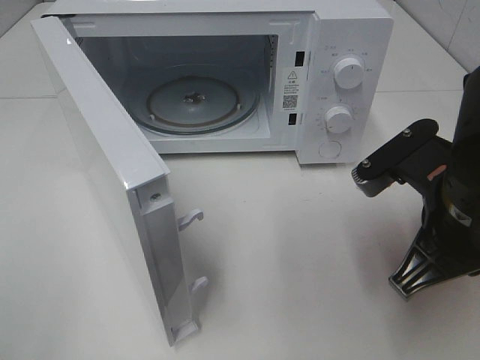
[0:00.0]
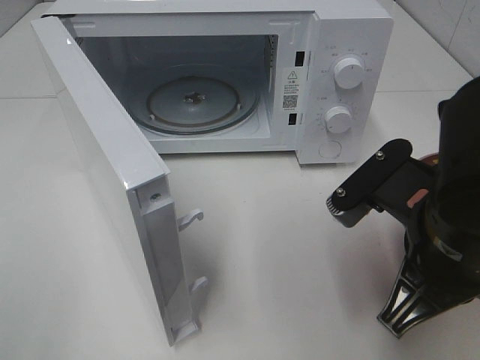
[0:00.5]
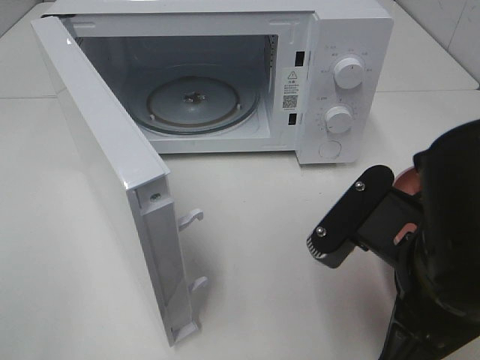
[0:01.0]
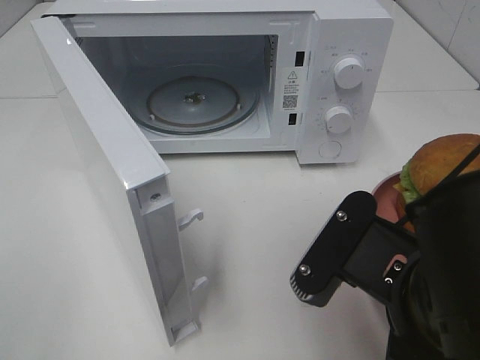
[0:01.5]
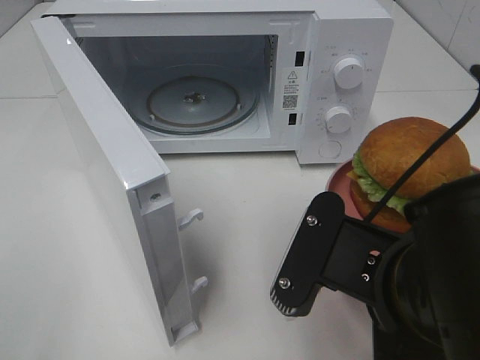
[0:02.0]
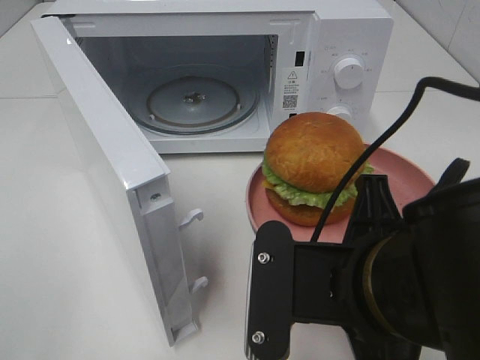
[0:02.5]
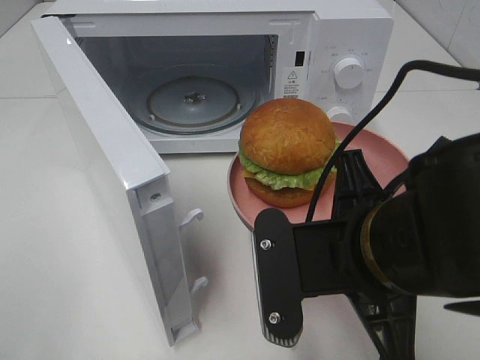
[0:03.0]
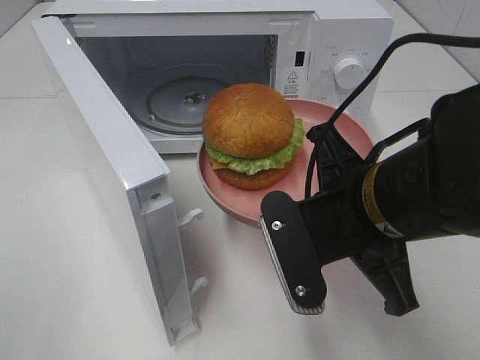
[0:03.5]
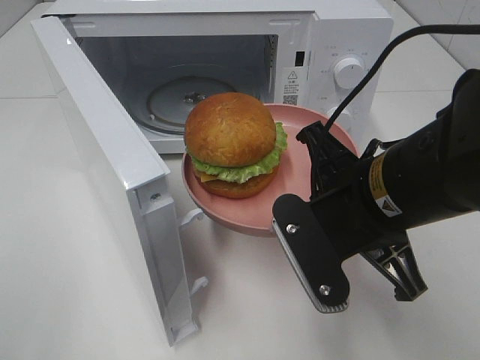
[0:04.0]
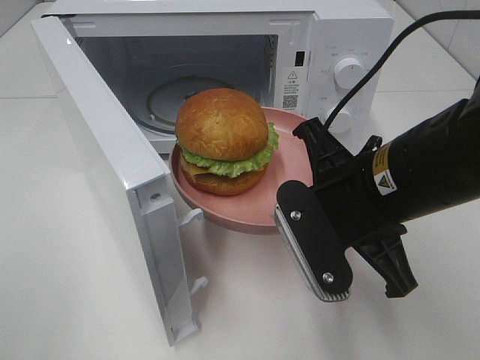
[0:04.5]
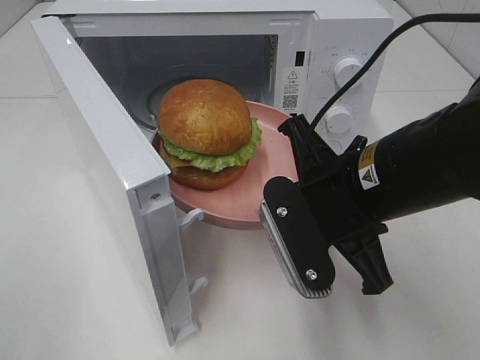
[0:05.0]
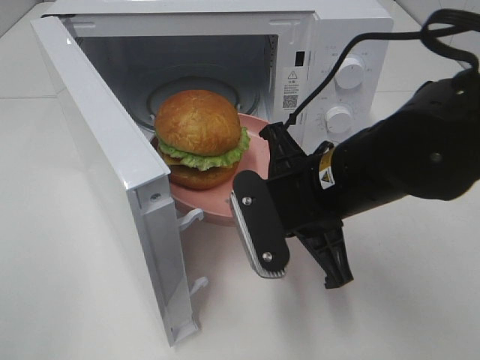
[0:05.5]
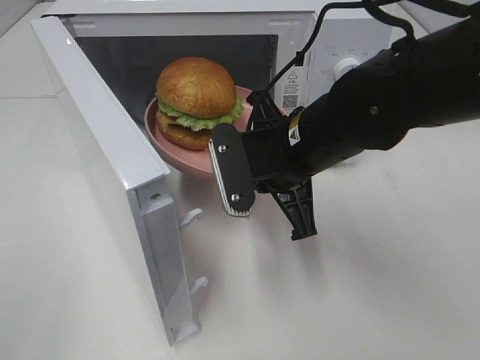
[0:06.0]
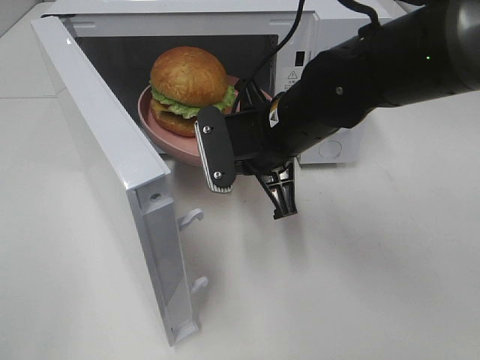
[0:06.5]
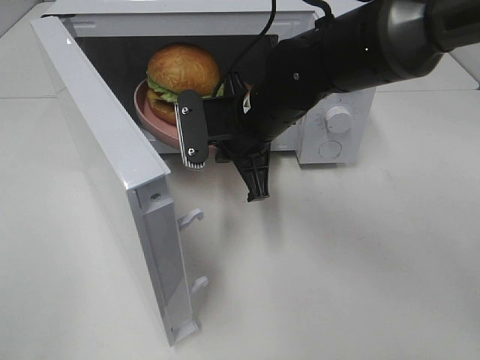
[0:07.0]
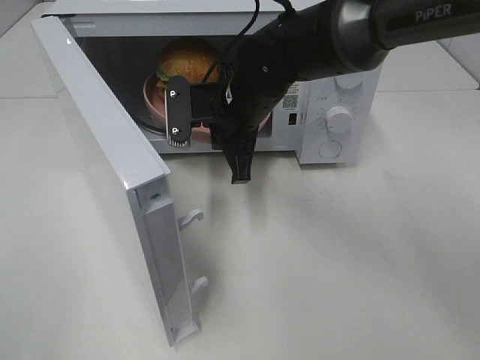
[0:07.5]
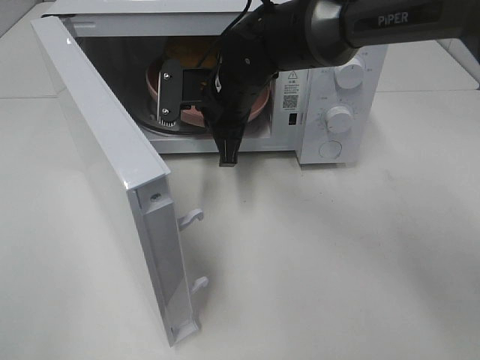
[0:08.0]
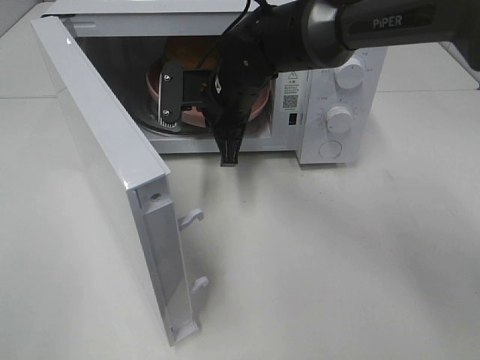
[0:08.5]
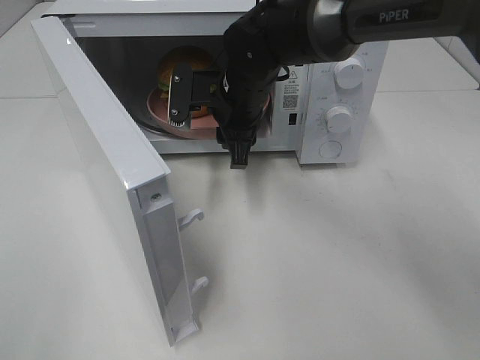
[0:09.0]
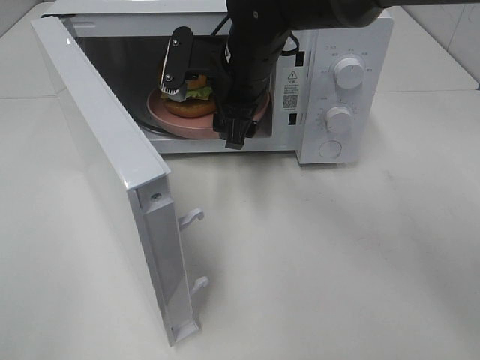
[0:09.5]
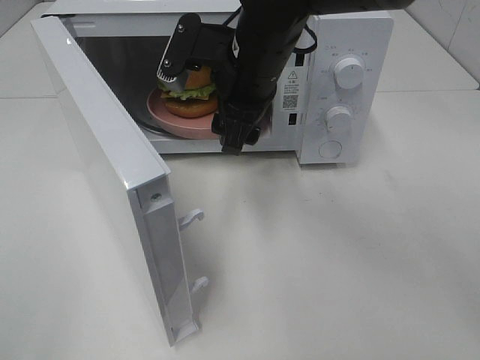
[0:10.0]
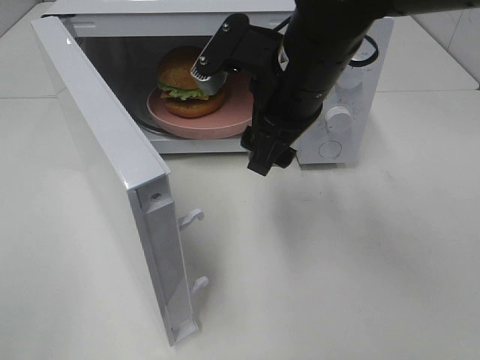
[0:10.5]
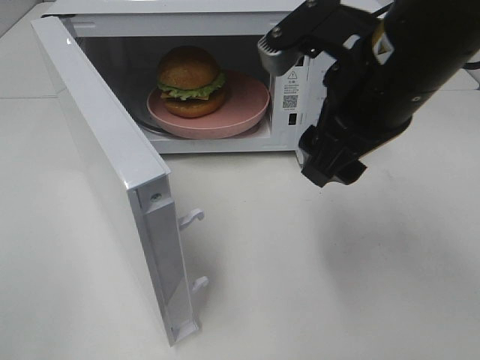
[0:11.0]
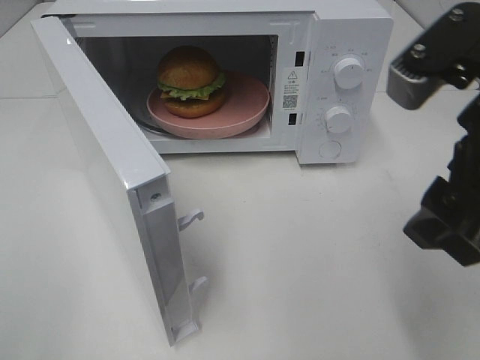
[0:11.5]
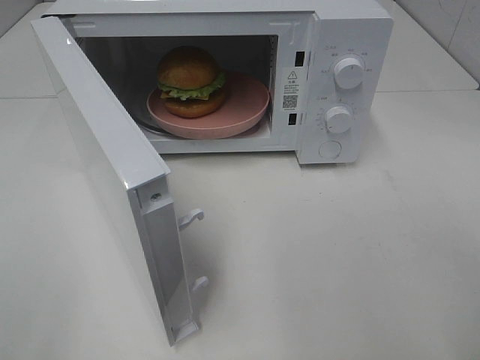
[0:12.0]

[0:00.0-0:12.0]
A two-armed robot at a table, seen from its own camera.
Task of the whole recording: Heat the burger.
Step, 0:00.0 to 0:08.5: Right hand: place the plate in the microwave.
0:00.0 to 0:02.0: The right gripper is displaced backward and to the left by some 10 cm.
0:02.0 to 0:04.0: The right gripper moves forward, about 10 cm.
0:04.0 to 0:06.0: The right gripper moves forward, approximately 10 cm.
0:06.0 to 0:08.0: The right gripper goes approximately 15 cm forward and to the left.
0:08.0 to 0:10.0: The right gripper heads upward, covering roughly 5 cm, and opens its fingers.
0:10.0 to 0:12.0: The right gripper goes some 35 cm backward and to the right.

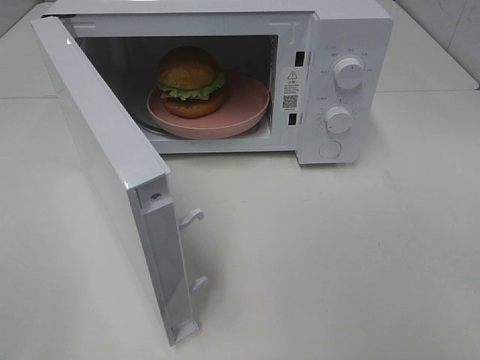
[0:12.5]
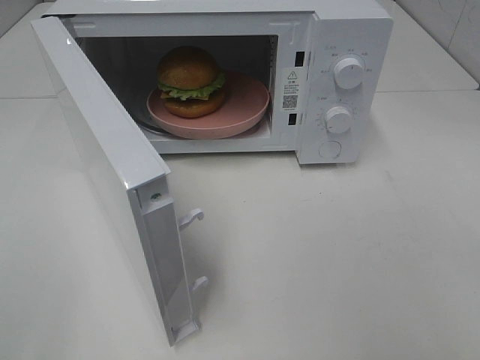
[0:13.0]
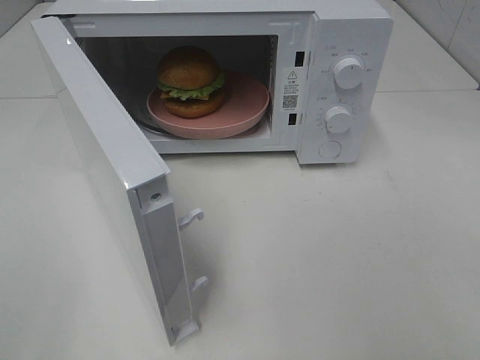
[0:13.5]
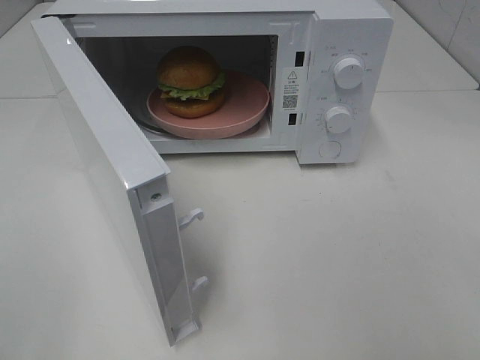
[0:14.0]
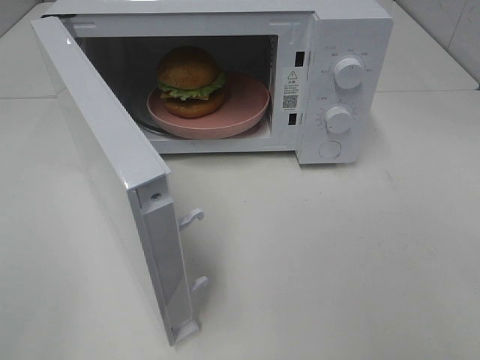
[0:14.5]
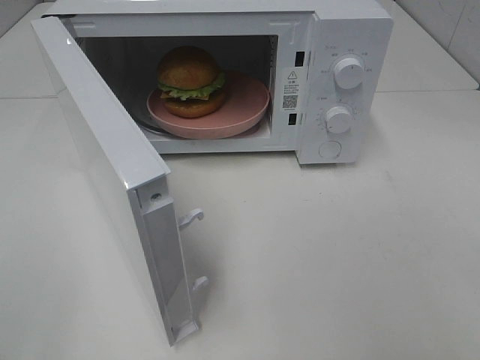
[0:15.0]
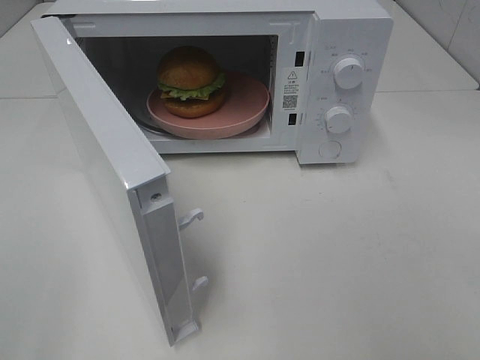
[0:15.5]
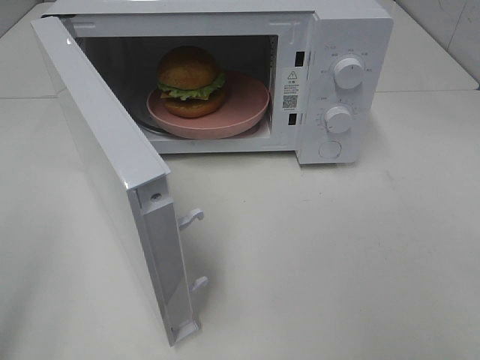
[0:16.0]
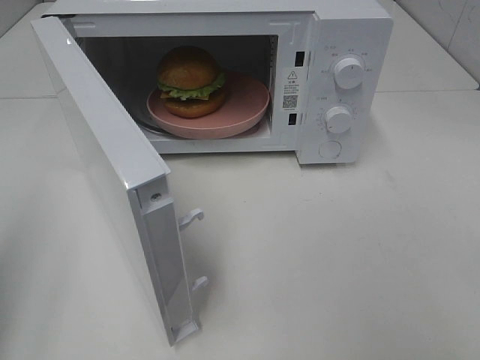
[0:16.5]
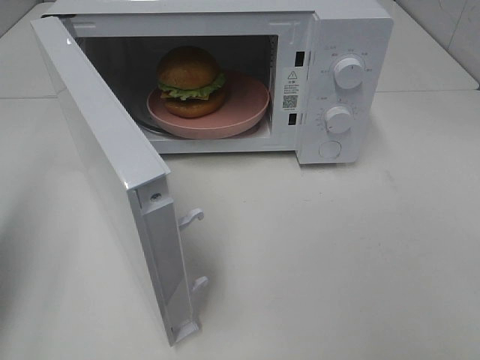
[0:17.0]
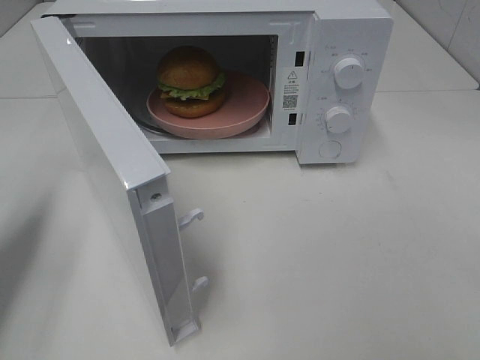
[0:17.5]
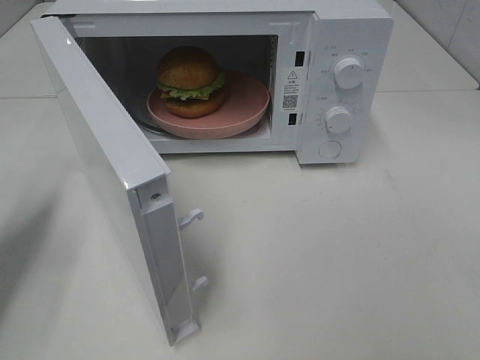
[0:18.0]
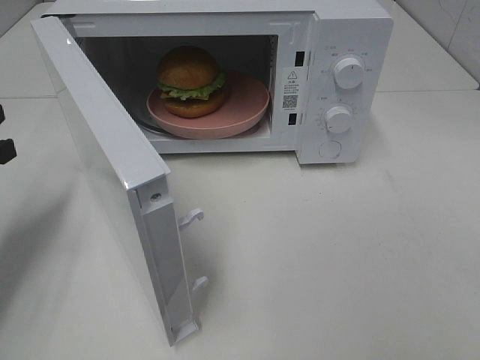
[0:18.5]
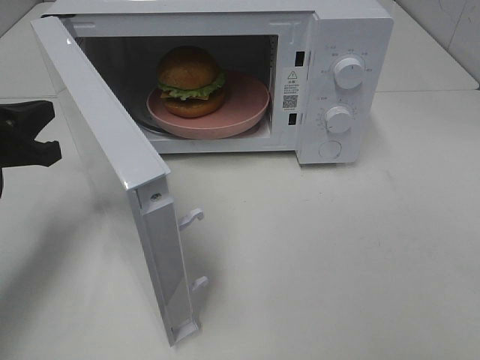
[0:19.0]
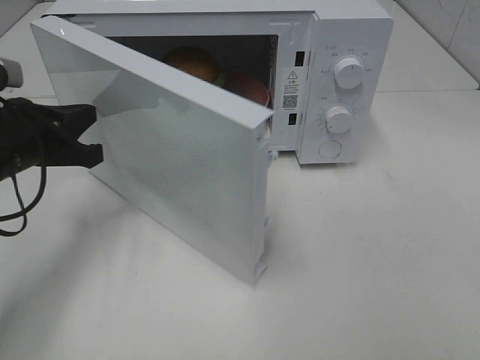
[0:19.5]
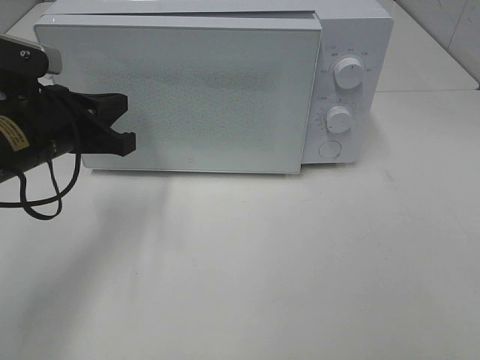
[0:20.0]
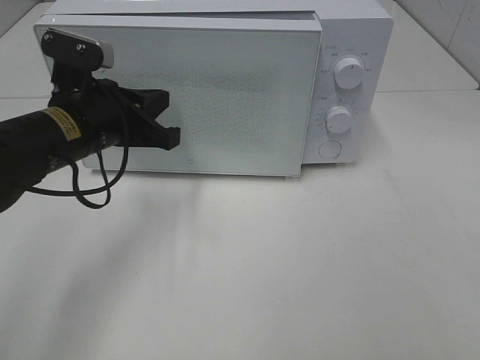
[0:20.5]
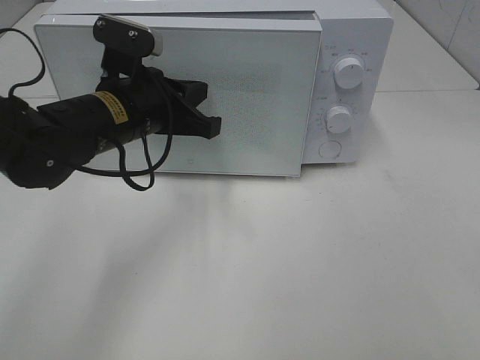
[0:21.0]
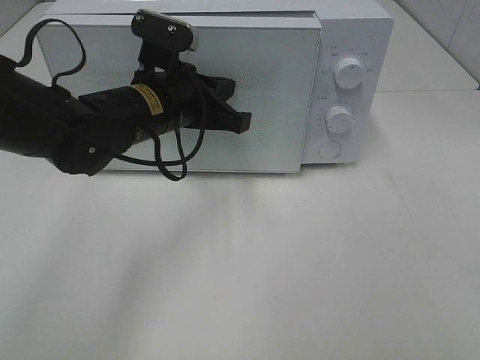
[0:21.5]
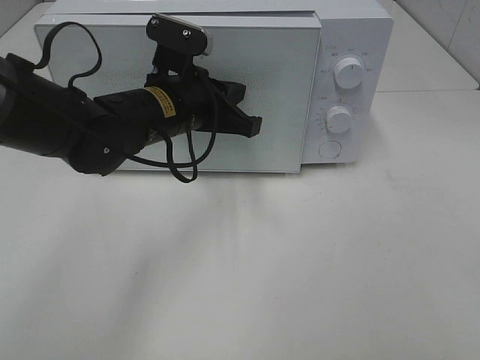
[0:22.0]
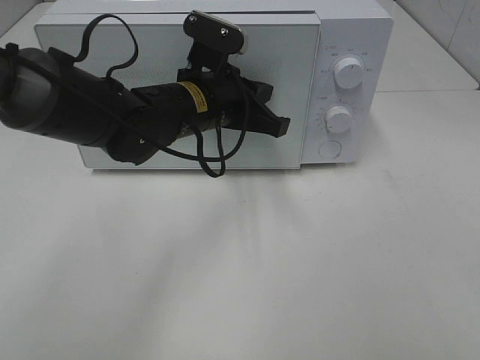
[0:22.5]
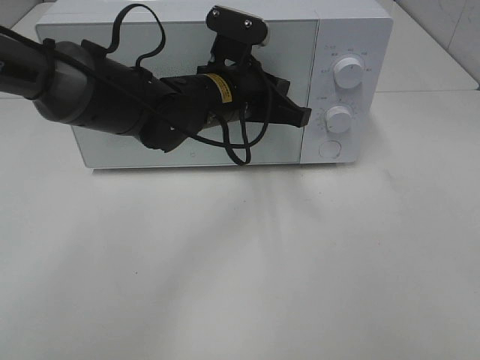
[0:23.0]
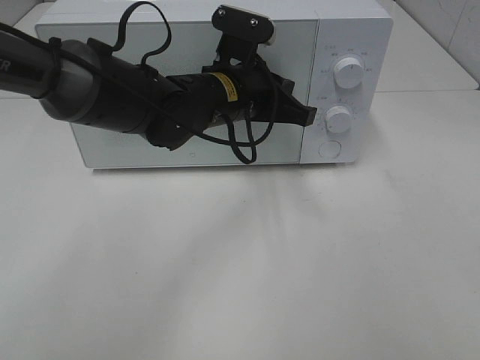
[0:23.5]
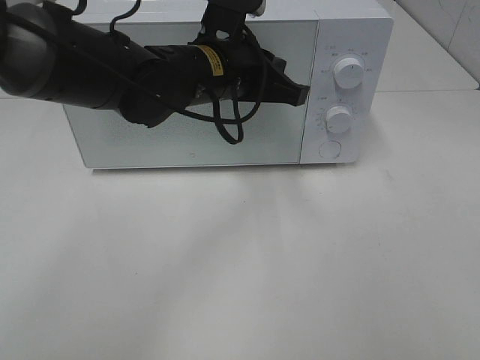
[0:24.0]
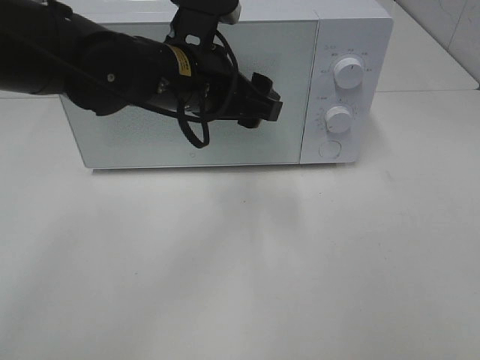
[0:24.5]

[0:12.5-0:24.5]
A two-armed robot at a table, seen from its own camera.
Task of the whole recording: Heat the burger.
Step, 0:12.5 to 0:23.5: Left hand: close the microwave door.
0:16.5 to 0:18.5: The left gripper shifts some 20 cm forward and downward.
0:18.5 to 0:20.5: The left gripper moves to the right, some 15 cm.
0:20.5 to 0:22.5: The left gripper travels to the right by about 10 cm.
0:22.5 to 0:24.5: The left gripper goes some 5 cm upward, and opens its fingers.

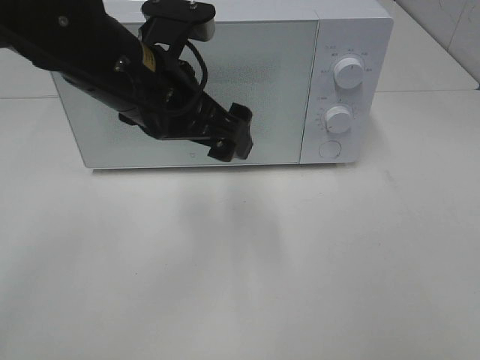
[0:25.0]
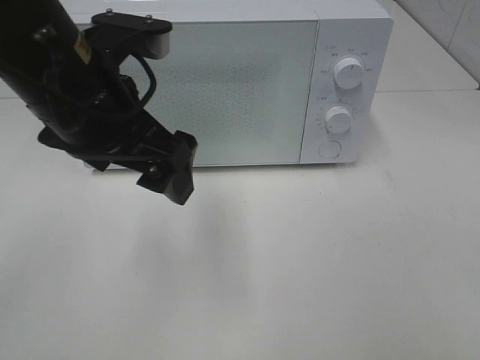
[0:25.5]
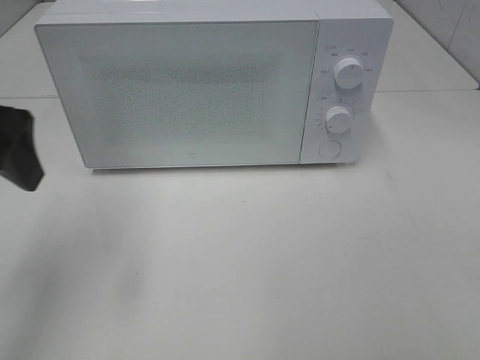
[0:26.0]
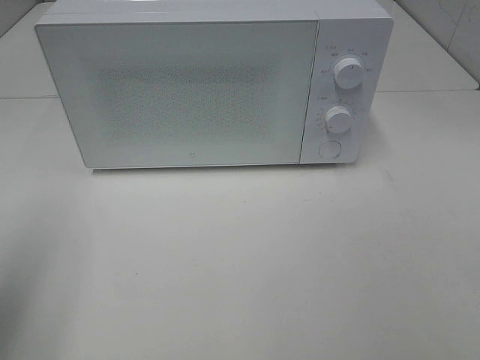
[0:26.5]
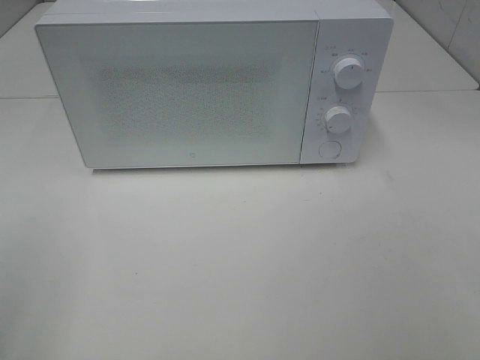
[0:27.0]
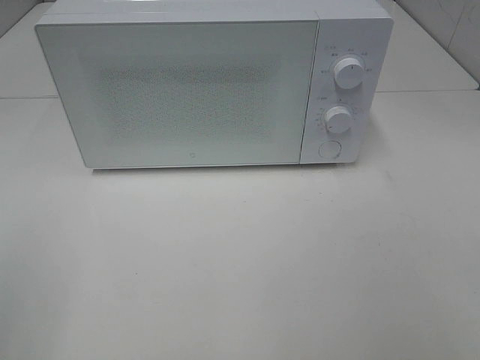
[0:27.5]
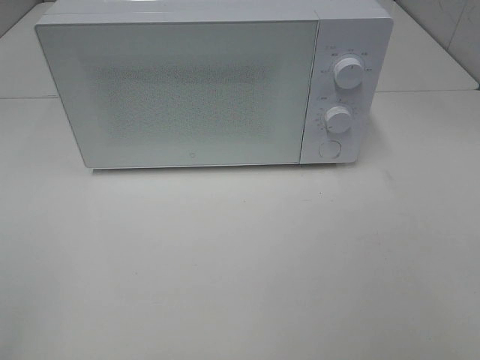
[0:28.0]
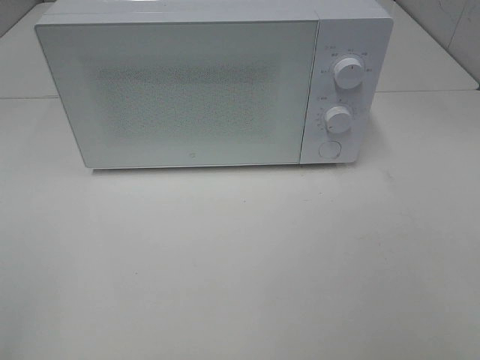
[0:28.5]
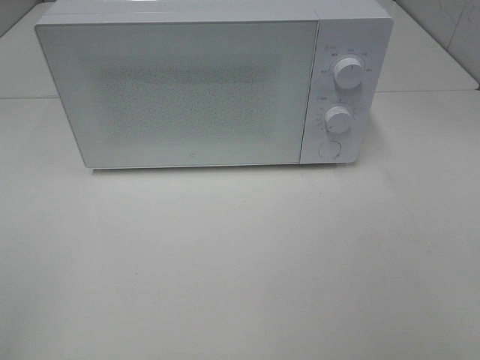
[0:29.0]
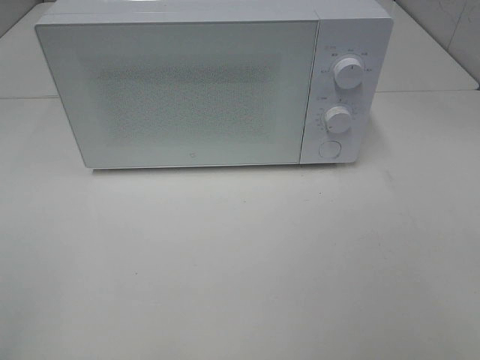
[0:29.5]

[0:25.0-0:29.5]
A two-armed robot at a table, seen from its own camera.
Task of the whole recording: Heat the burger.
0:25.0 to 0:27.0: The left gripper shifts approximately 35 cm to the left and backward.
